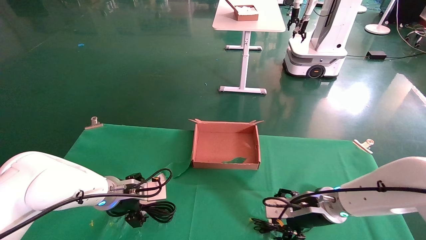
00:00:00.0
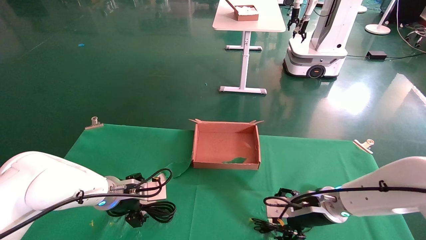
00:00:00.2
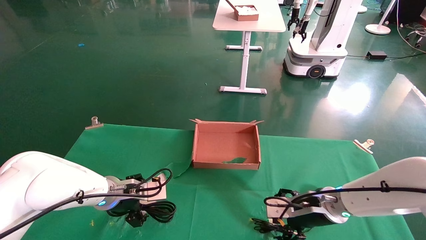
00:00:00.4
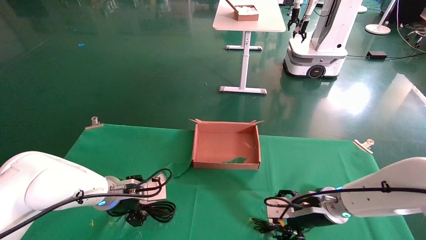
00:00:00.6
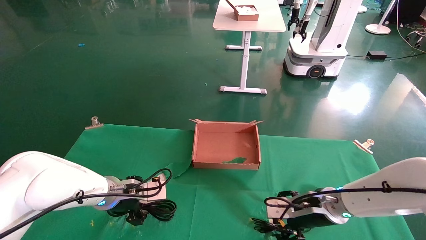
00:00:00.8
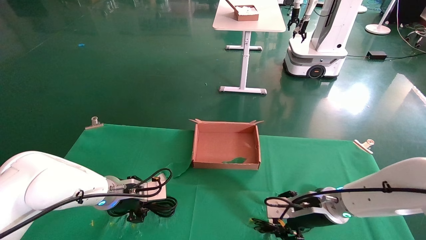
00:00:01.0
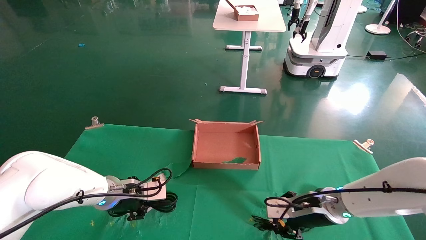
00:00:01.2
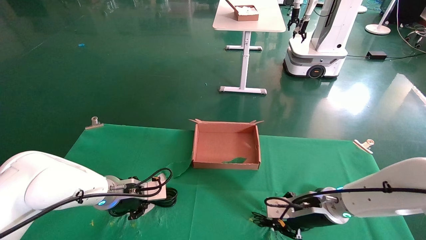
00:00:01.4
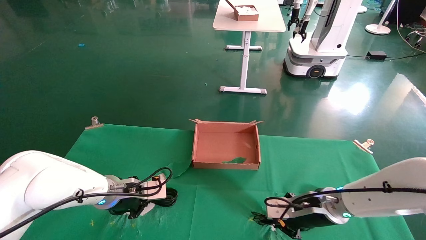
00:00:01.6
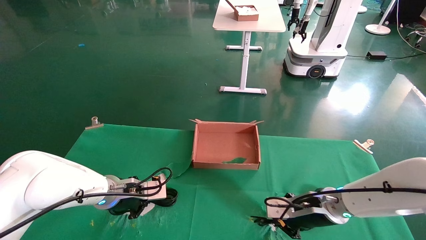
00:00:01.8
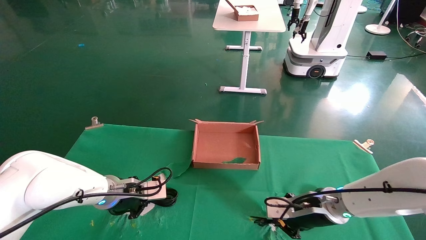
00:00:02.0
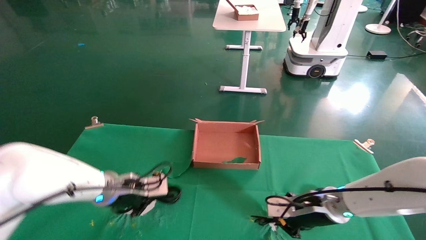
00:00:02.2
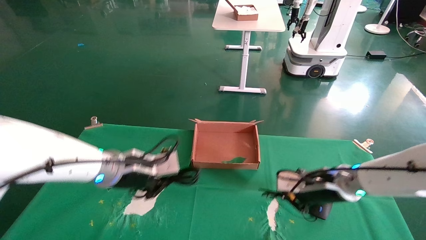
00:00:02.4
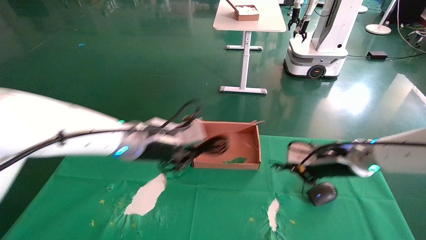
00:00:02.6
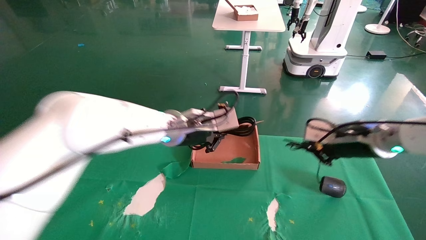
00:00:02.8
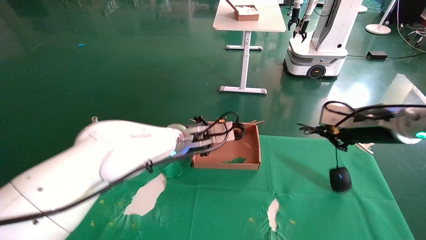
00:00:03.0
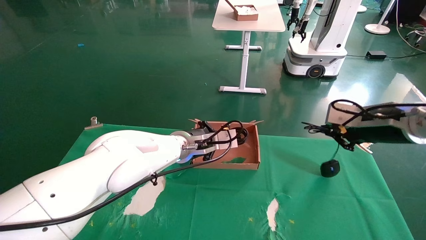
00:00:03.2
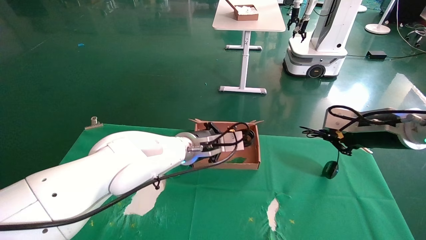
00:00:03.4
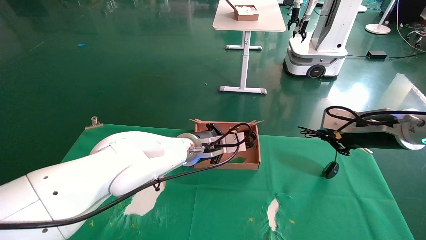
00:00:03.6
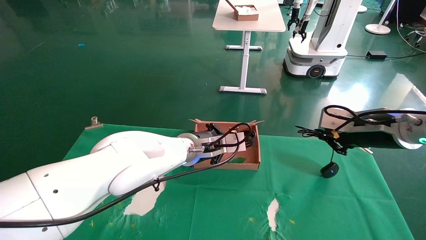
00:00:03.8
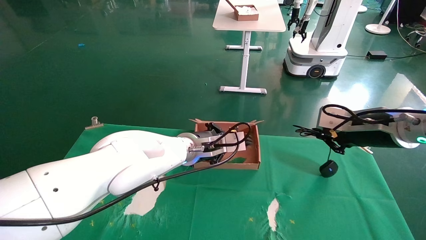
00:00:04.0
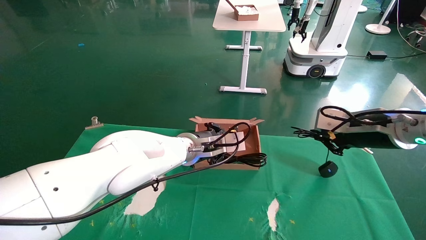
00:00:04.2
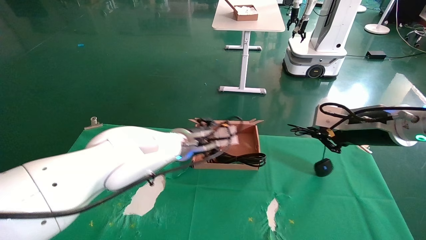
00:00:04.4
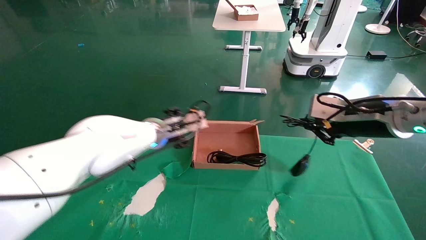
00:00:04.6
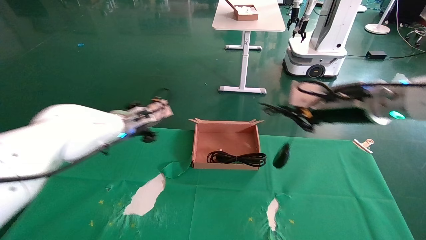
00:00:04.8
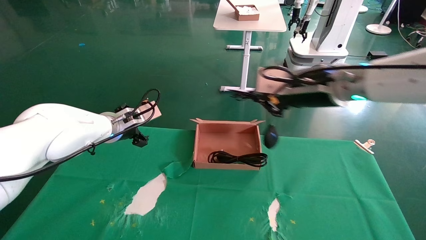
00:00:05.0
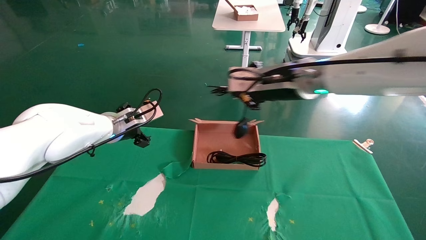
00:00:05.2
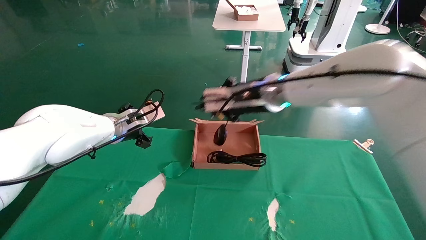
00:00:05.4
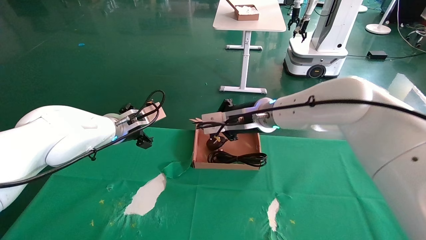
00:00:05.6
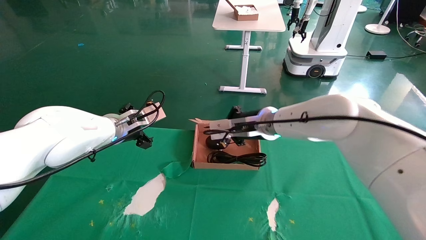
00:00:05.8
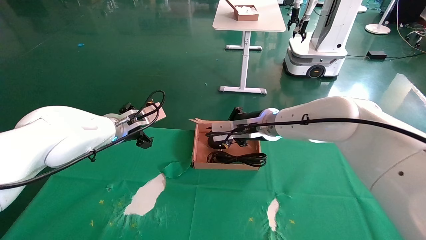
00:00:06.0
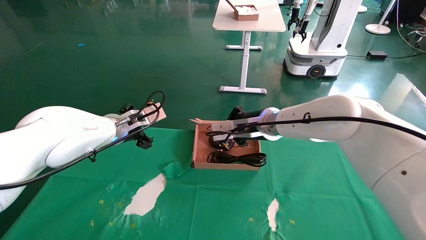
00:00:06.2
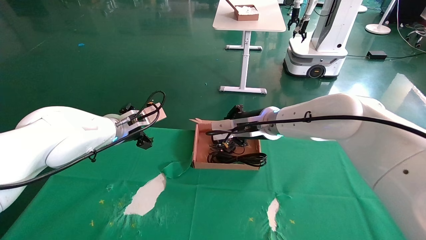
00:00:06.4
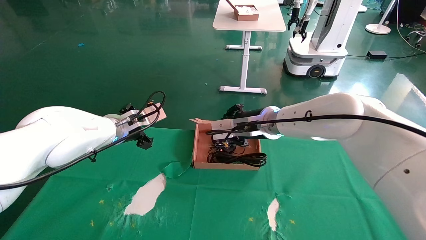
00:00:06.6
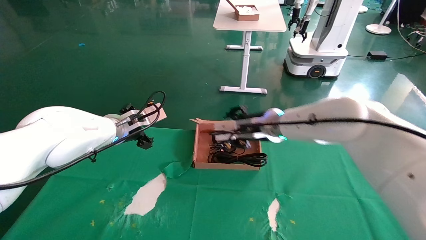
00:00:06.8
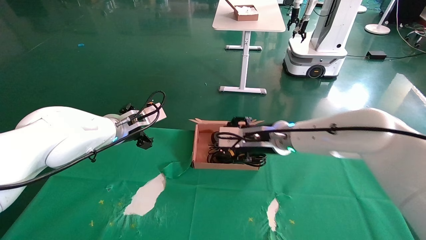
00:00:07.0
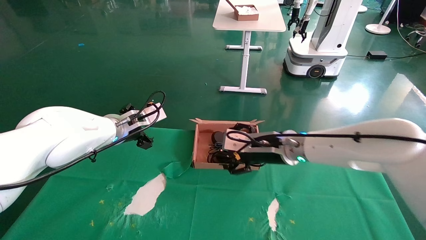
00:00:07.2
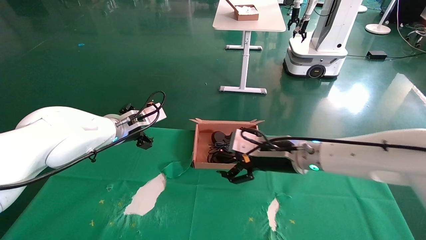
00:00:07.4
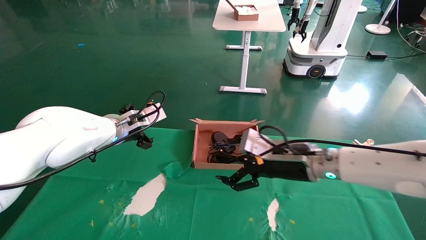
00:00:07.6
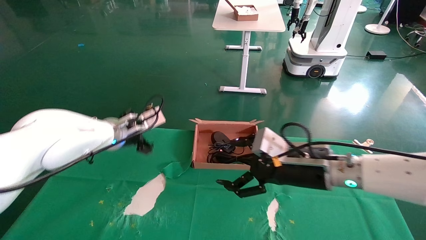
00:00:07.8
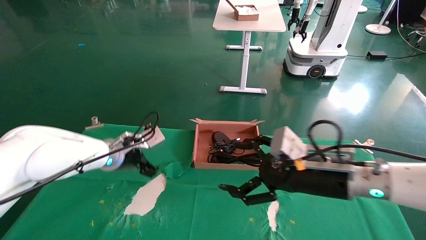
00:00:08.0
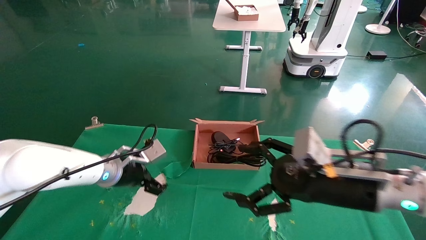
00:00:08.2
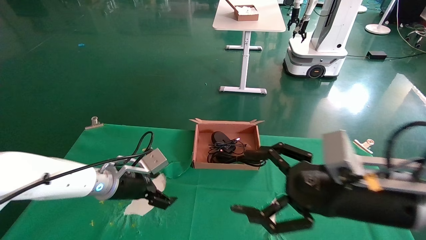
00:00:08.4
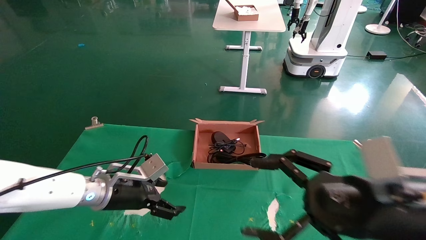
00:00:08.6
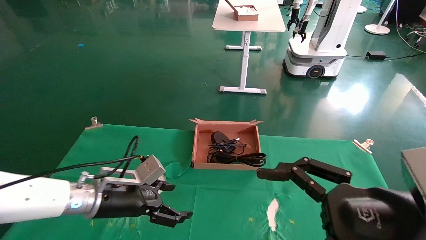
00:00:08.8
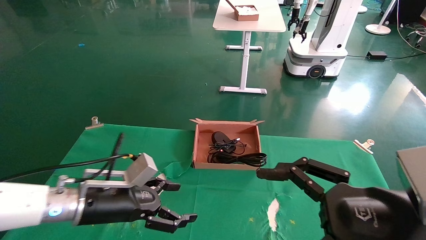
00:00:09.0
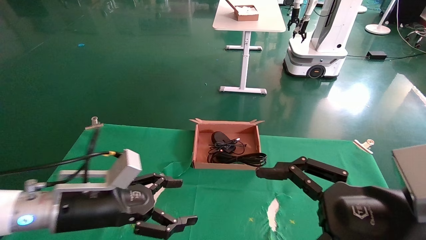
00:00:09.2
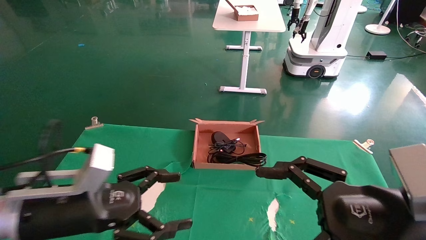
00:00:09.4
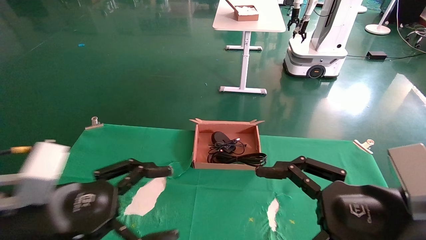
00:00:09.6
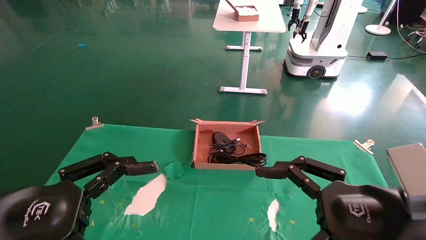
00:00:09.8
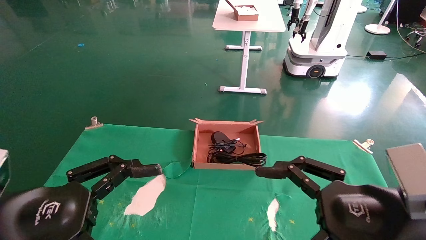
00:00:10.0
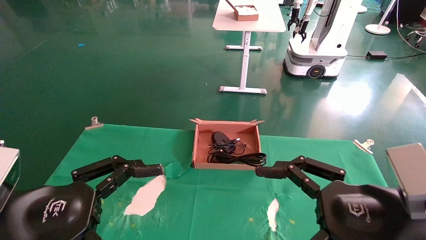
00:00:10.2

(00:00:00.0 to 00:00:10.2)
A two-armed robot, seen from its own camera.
Step, 00:00:00.0 - 00:00:02.4: Grab and lift both the mouse and power cord from the accessory packaging area at the same time.
Step, 00:00:02.6 - 00:00:07.8: Place the mouse and power cord into the box.
00:00:00.0 - 00:00:01.4: The left gripper closes up; the right gripper closes its fingers.
00:00:01.4 - 00:00:03.0: The right gripper shifts roughly 20 cm upward and to the right, while the left gripper goes some 20 cm to the right and upward.
00:00:03.0 - 00:00:04.4: The left gripper opens its fingers.
00:00:04.4 - 00:00:05.8: The right gripper shifts about 25 cm to the left and forward. Meanwhile the left gripper goes about 15 cm to the left, and opens its fingers.
00:00:05.8 - 00:00:07.2: The right gripper changes place by roughly 5 cm, and opens.
00:00:07.2 - 00:00:08.8: The right gripper is displaced backward and to the right by approximately 25 cm. The left gripper heads backward and downward, covering roughly 15 cm.
00:00:08.8 - 00:00:10.2: The left gripper is displaced backward and upward by about 20 cm.
